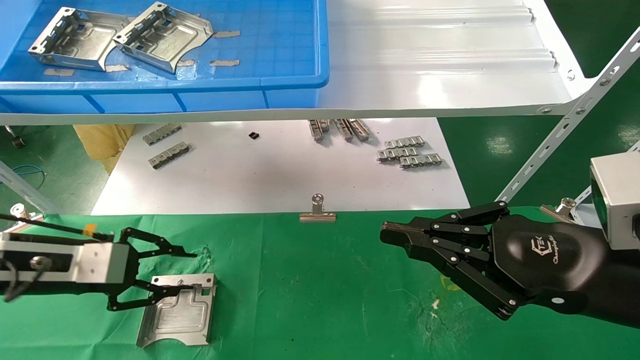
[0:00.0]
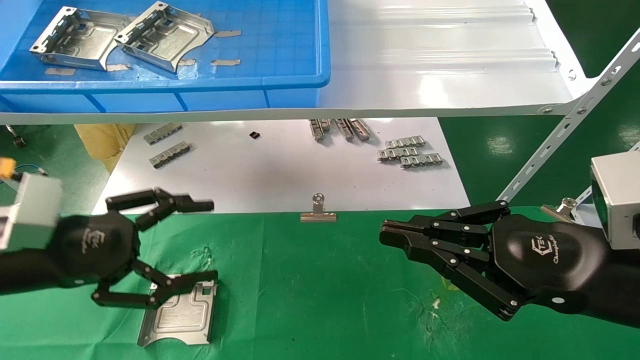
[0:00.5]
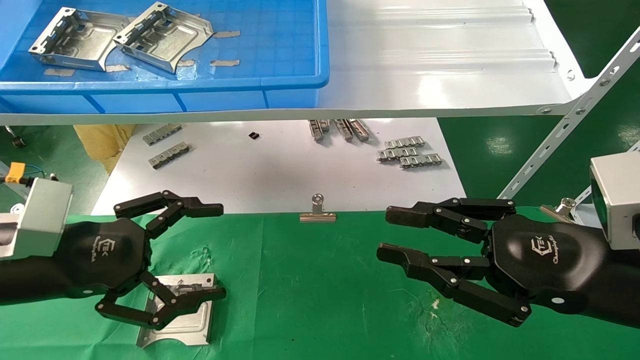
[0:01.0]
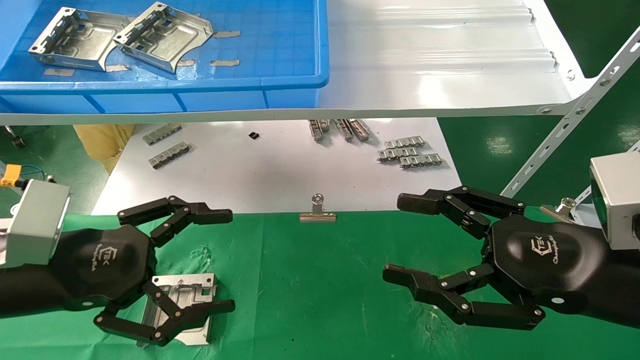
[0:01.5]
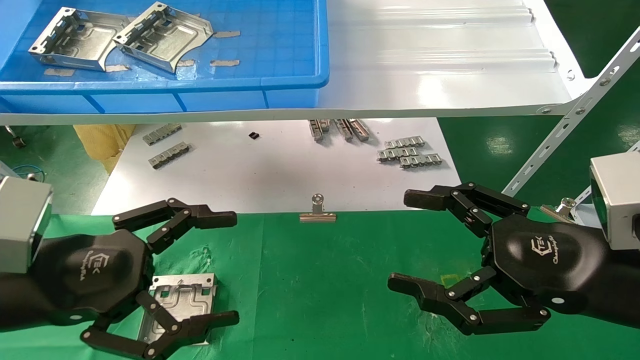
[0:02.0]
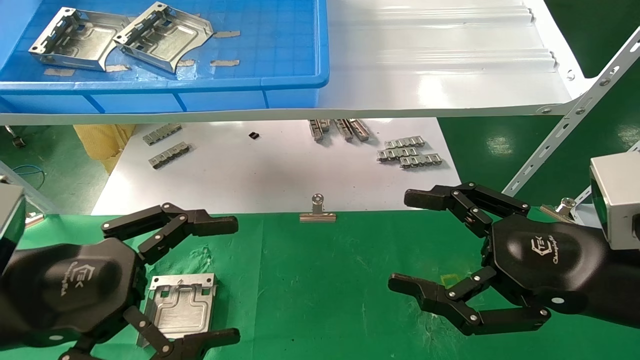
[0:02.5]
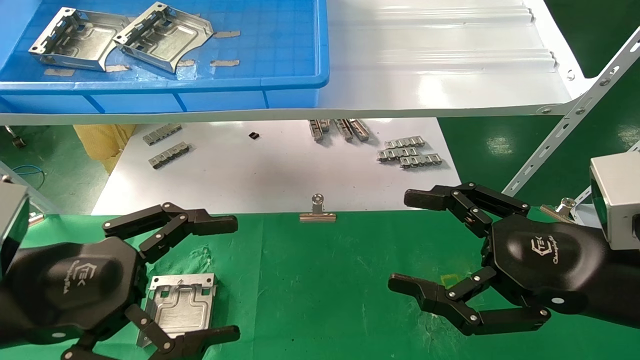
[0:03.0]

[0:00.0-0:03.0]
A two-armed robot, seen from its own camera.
Task of the whole recording: use the mechanical arm to pick up the parts and place them on the table.
0:00.0 to 0:01.5: The left gripper goes roughly 10 cm backward and to the right, and opens its fingers. The right gripper opens its fingers.
0:01.5 to 0:03.0: The left gripper moves about 5 cm.

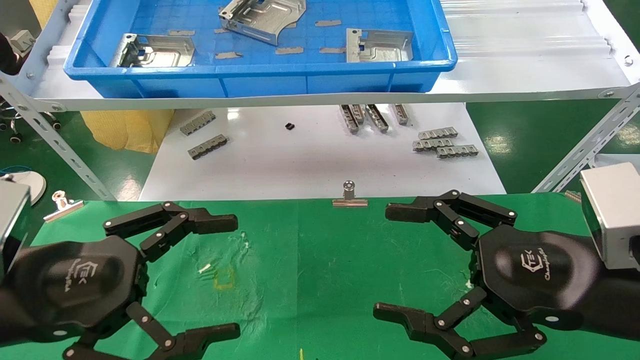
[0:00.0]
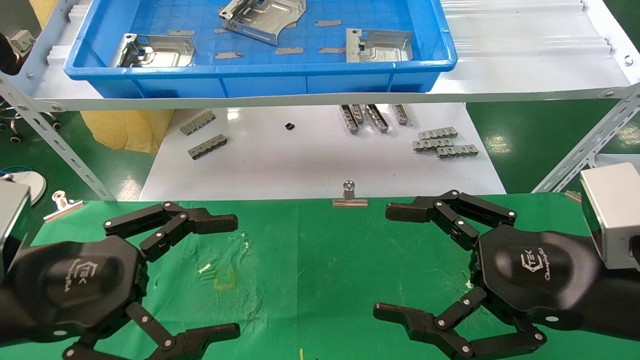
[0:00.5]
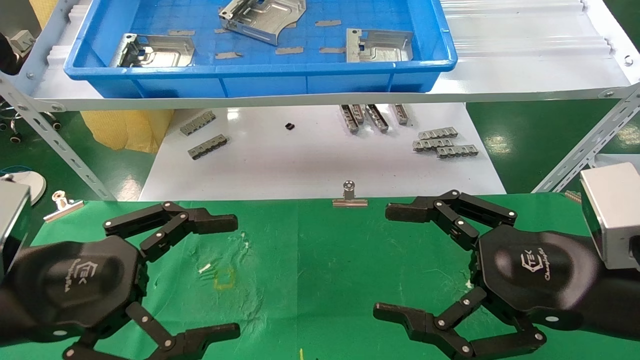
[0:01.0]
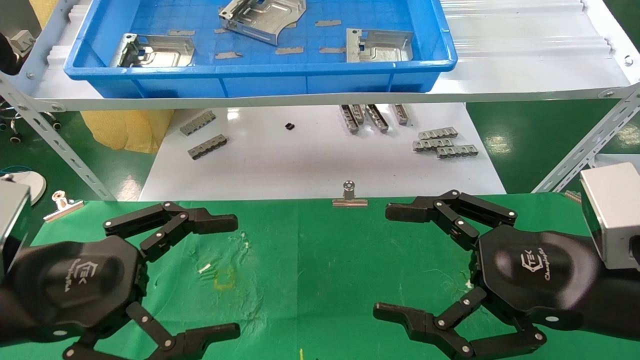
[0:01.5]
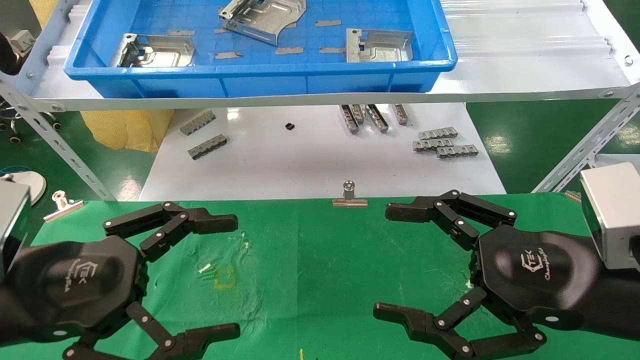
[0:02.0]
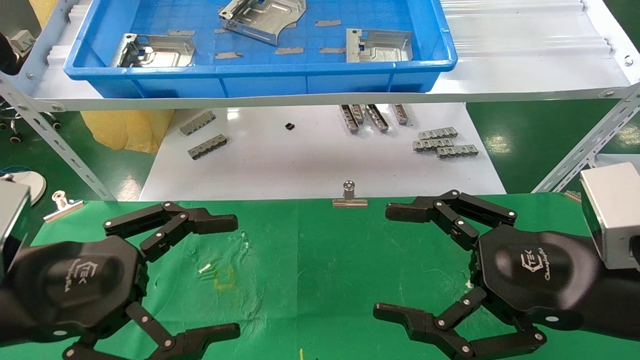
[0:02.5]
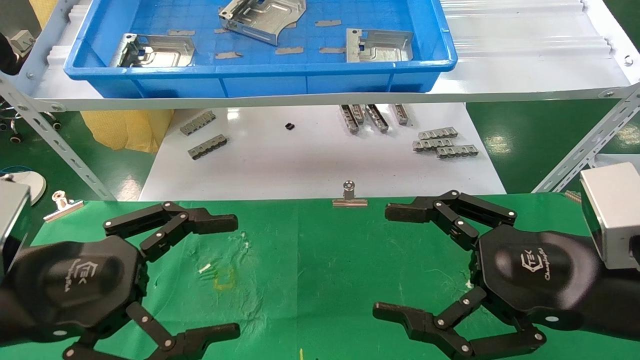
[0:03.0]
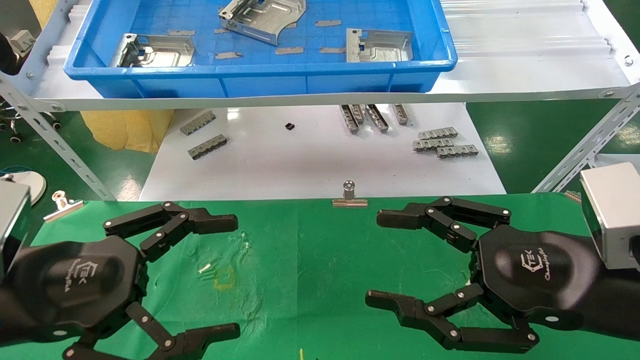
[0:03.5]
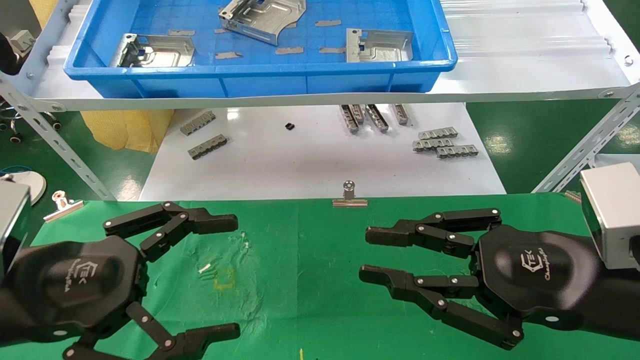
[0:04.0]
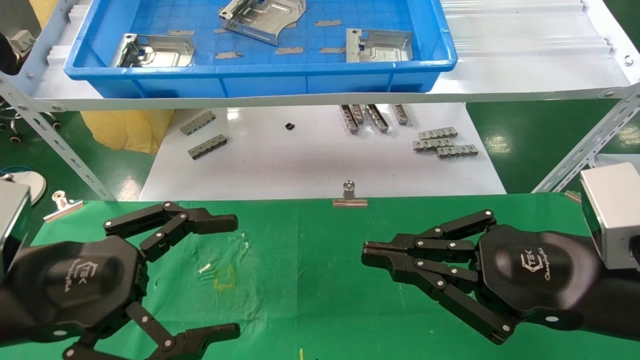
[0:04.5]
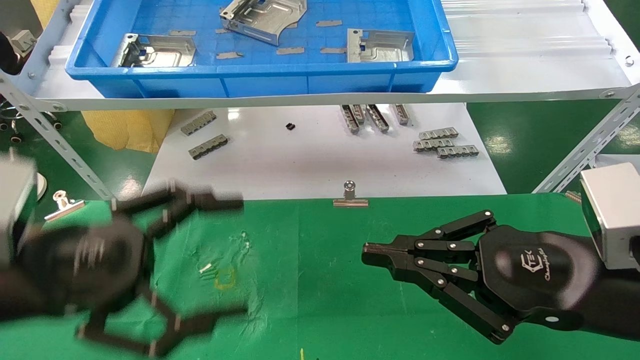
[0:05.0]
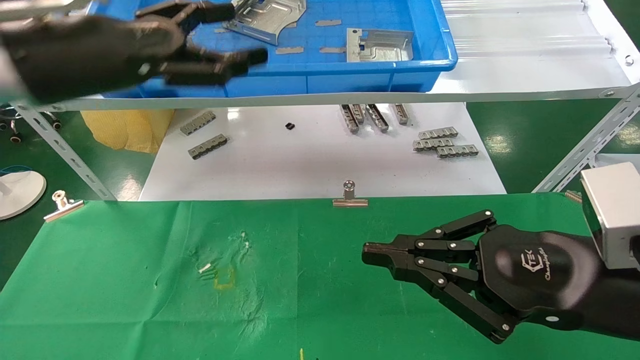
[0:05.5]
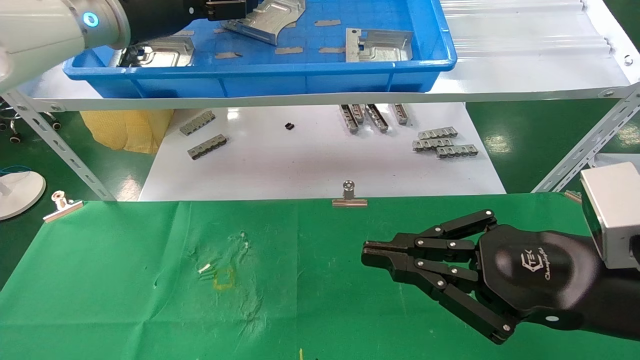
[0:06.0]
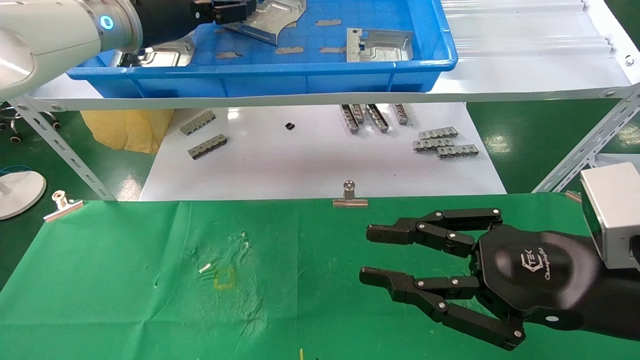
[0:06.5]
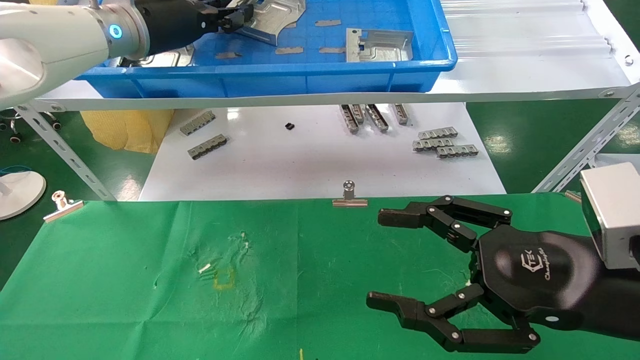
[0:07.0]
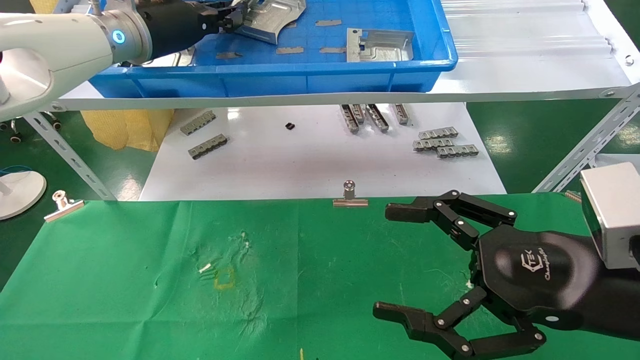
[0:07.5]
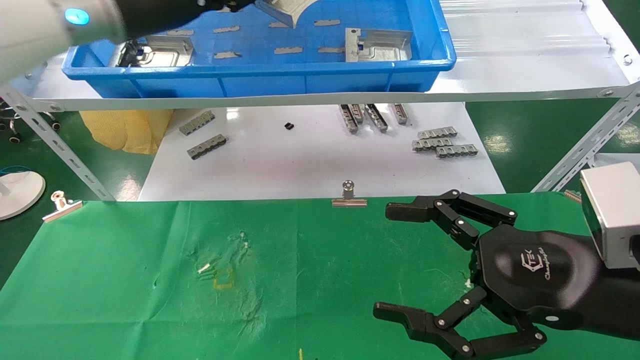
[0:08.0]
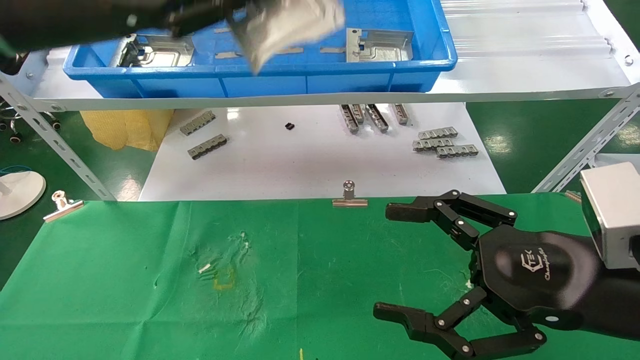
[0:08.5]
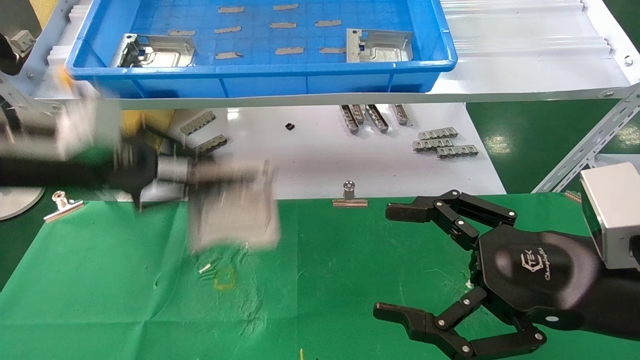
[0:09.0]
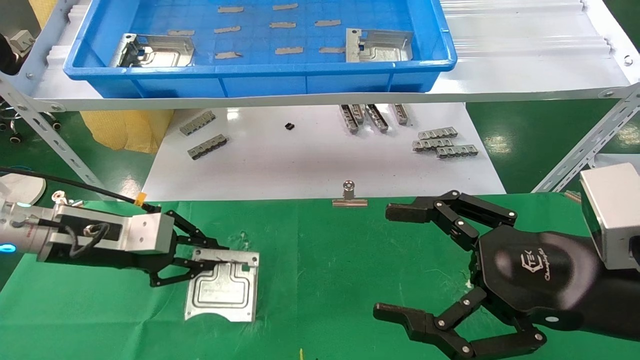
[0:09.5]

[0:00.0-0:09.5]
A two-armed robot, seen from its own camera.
Task of the whole recording: use the mechanical arm to pick up the parts and place them on the table.
Step, 0:05.5 to 0:07.0: Pick up the hard drive bracket from the feeding area.
0:00.0 to 0:02.0: Neither gripper changes place.
0:02.0 to 0:04.0: The right gripper closes its fingers.
0:04.0 to 0:05.5: The right gripper closes up, while the left gripper moves upward and forward, some 25 cm.
0:05.5 to 0:07.5: The right gripper opens, while the left gripper shifts about 10 cm forward, and closes its fingers.
0:07.5 to 0:09.5: The left gripper is displaced downward and to the left by some 25 cm.

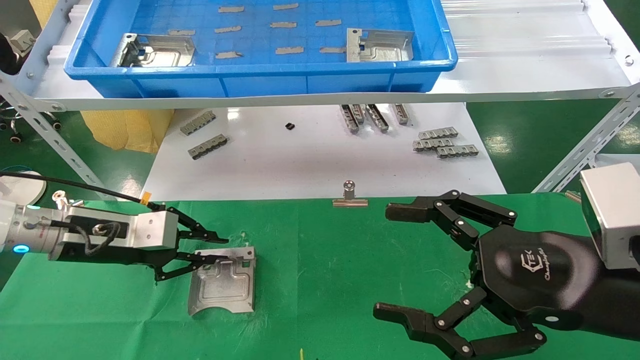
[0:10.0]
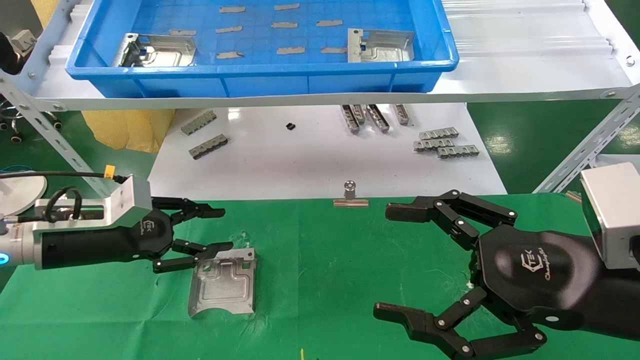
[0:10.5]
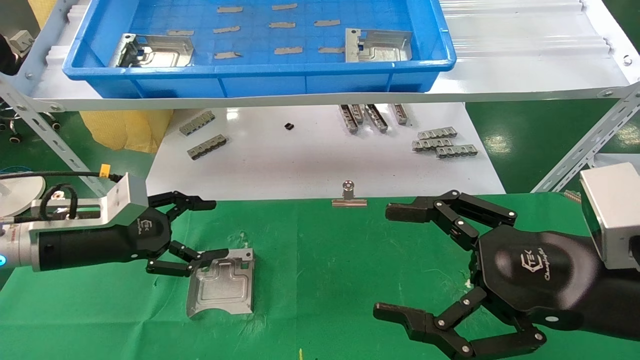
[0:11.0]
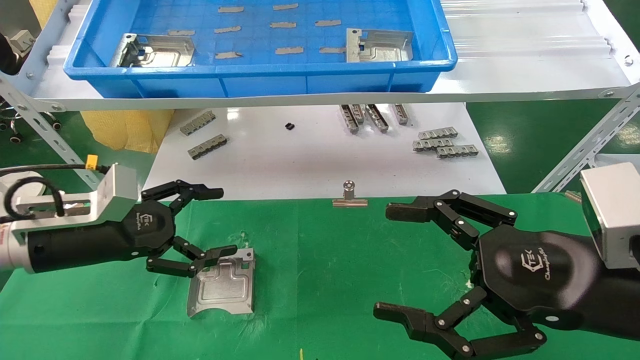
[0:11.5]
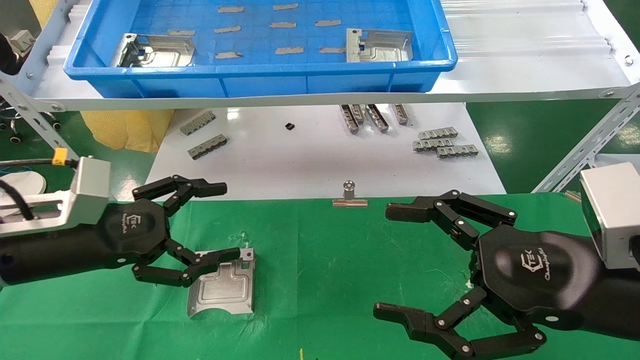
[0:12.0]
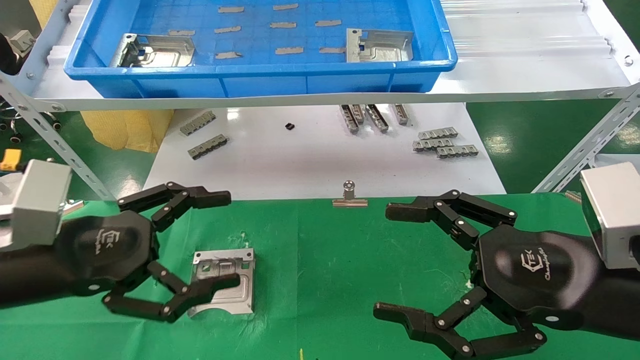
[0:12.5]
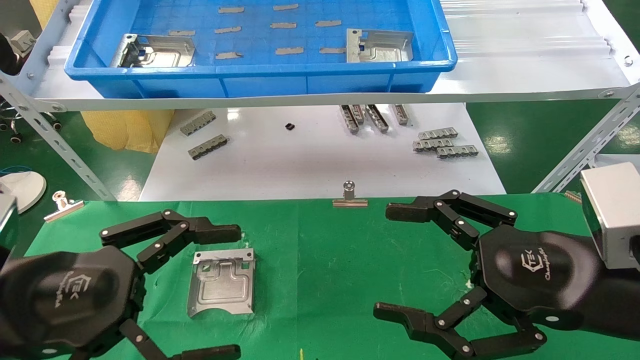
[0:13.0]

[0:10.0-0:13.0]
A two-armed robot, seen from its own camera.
Task of the whole recording: use the mechanical arm to pick up the parts and place them on the table.
0:10.0 to 0:11.5: The left gripper opens its fingers.
0:11.5 to 0:13.0: The left gripper travels backward by approximately 15 cm.
